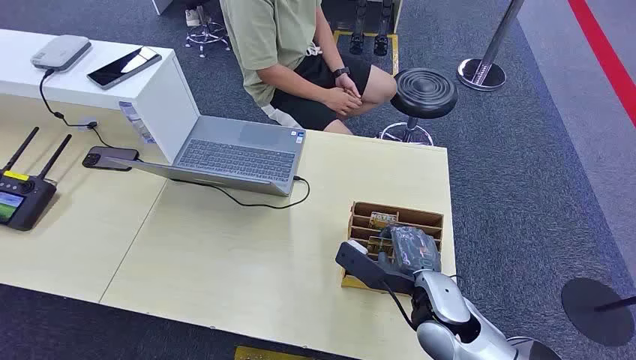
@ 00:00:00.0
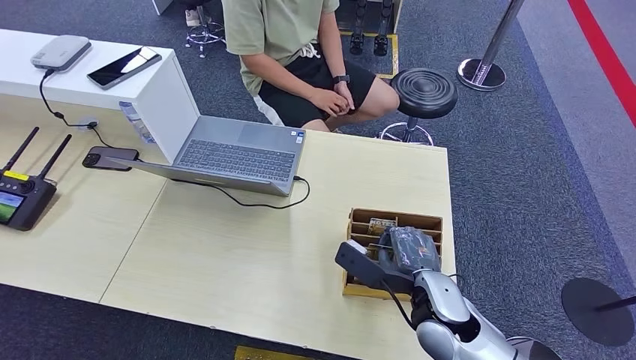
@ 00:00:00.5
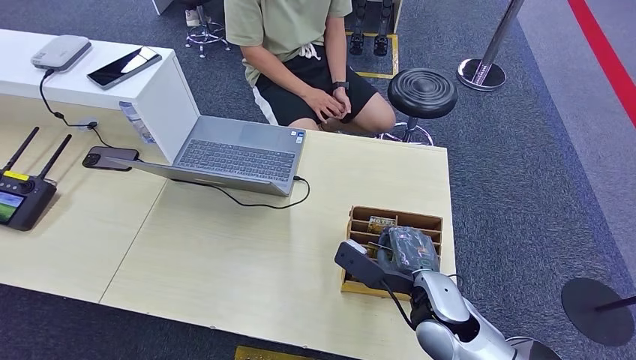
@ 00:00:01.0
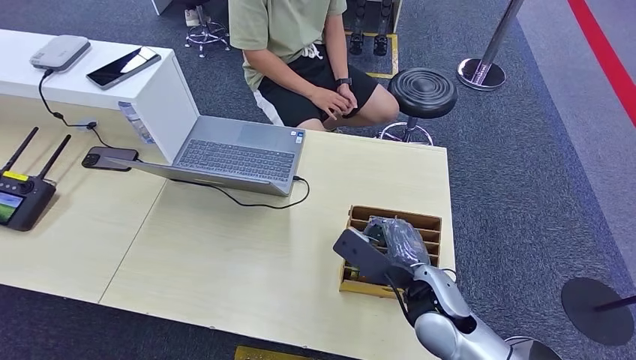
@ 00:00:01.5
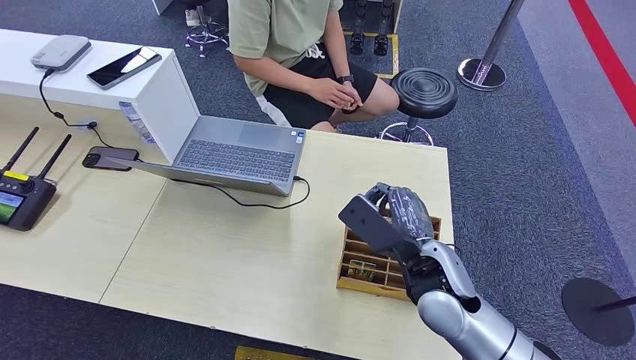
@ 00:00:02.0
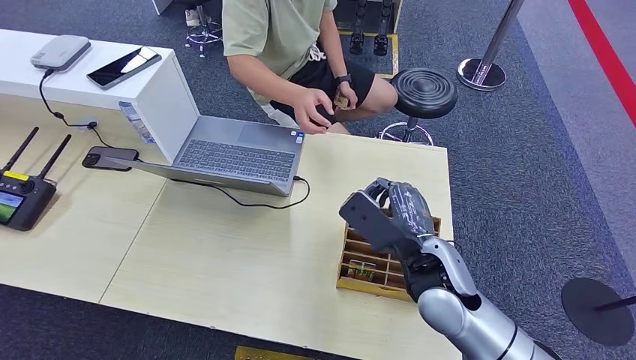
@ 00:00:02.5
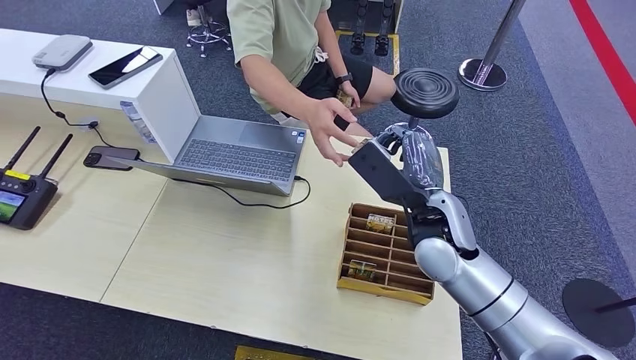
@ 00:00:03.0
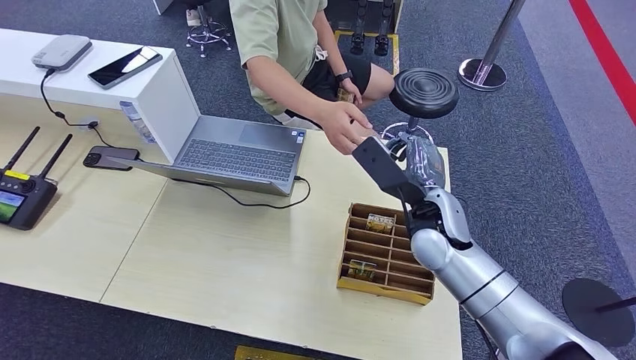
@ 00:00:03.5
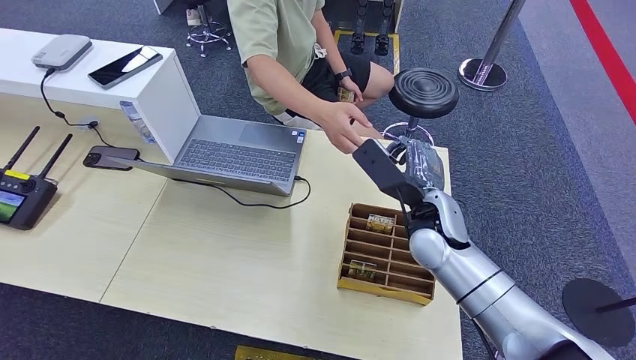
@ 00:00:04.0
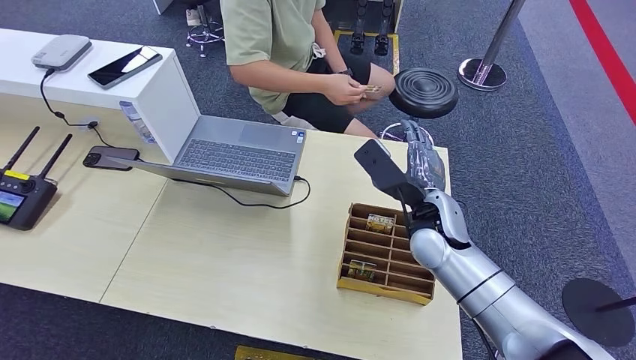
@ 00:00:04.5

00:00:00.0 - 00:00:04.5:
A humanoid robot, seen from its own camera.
Step, 00:00:00.0 - 00:00:02.5: Pick up the room card from the card holder.
Step, 00:00:03.0 - 00:00:04.5: Hand the room card to the target.
00:00:02.0 - 00:00:04.5: The right hand travels forward by some 10 cm.

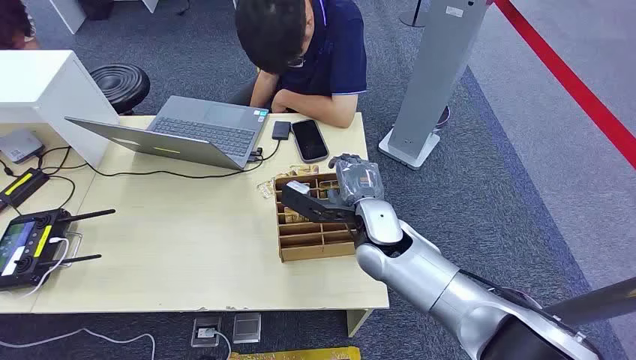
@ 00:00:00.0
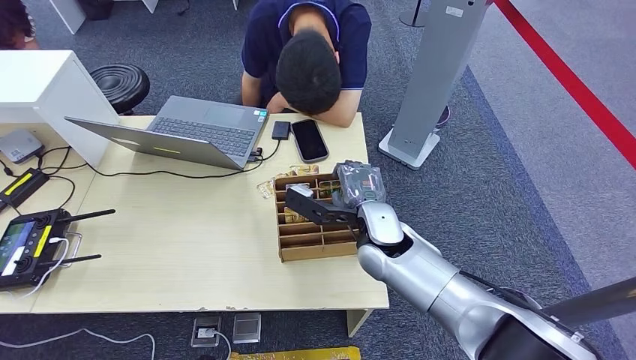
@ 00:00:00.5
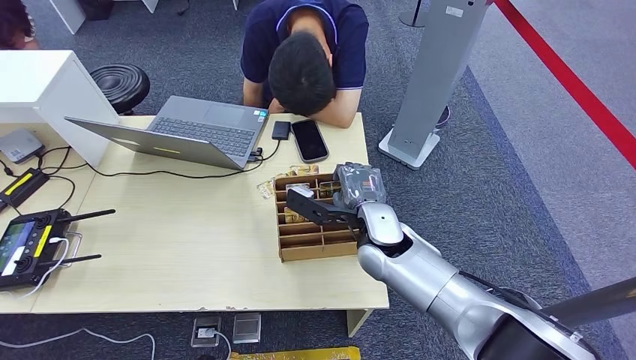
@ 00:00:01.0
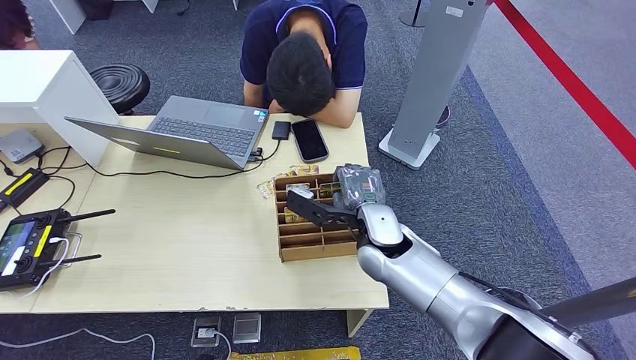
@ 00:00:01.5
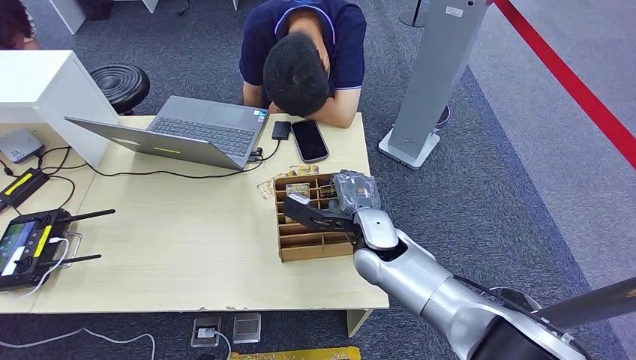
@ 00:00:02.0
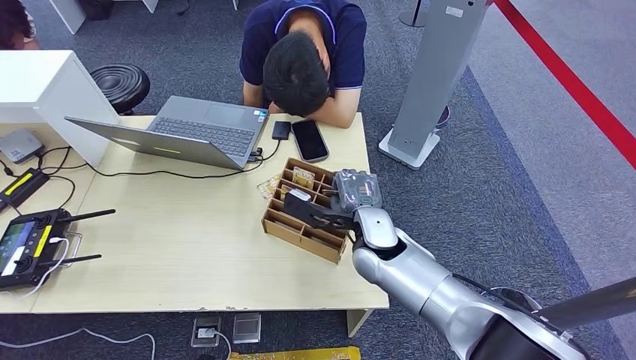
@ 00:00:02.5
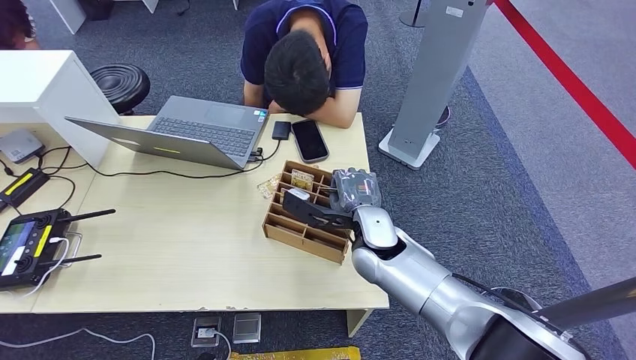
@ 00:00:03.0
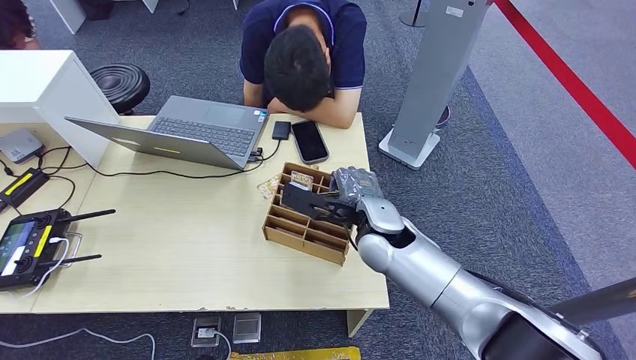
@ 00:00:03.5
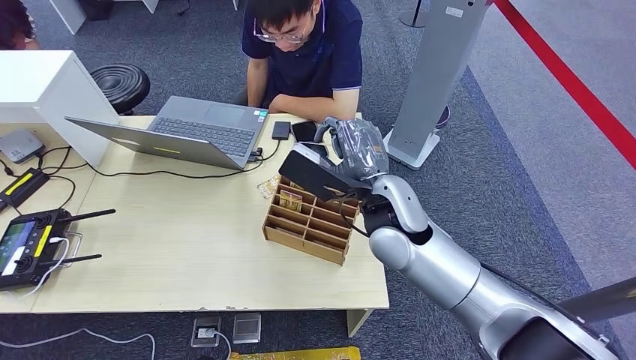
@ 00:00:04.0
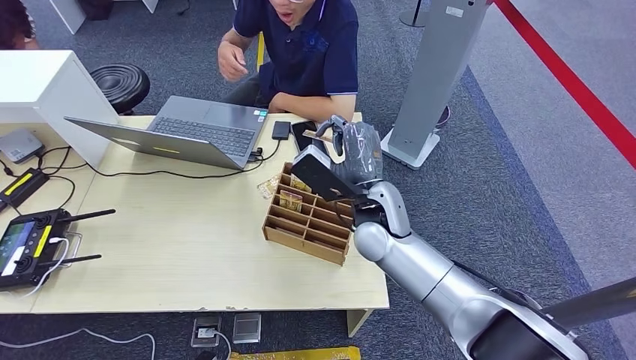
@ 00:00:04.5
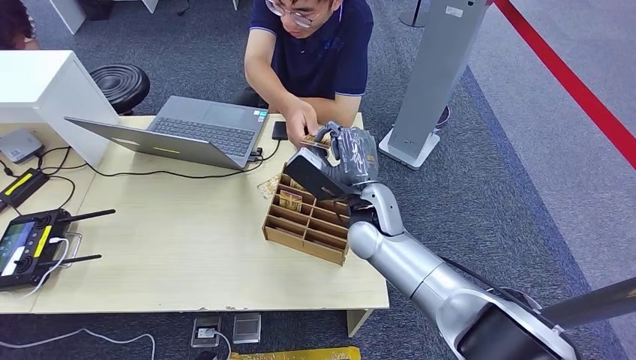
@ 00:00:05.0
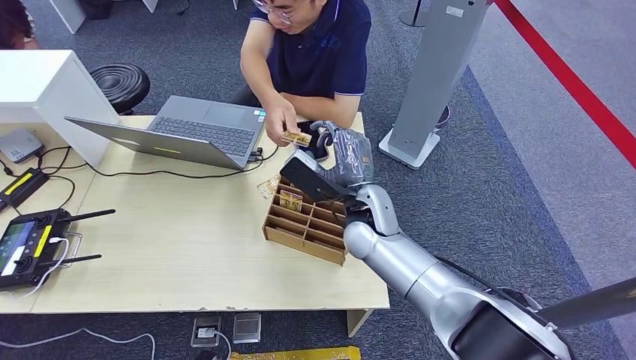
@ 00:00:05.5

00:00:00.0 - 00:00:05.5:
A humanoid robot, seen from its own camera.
Step, 00:00:00.0 - 00:00:04.0: Pick up the room card from the card holder.
Step, 00:00:04.5 - 00:00:05.5: Hand the room card to the target.
00:00:02.0 - 00:00:03.5: The hands move only a little.
